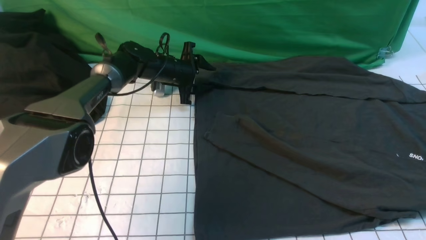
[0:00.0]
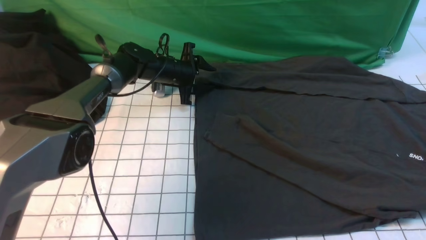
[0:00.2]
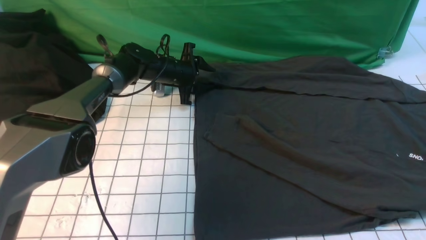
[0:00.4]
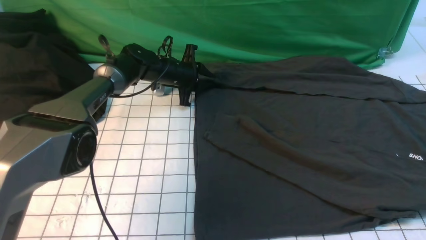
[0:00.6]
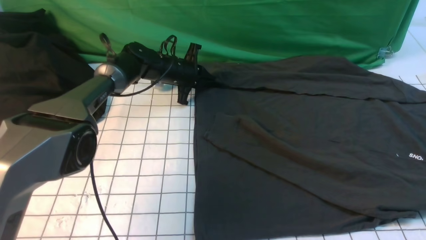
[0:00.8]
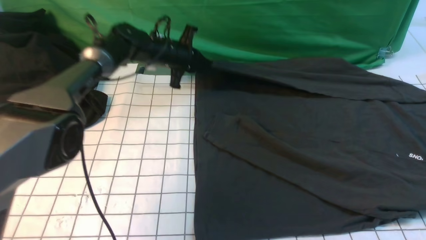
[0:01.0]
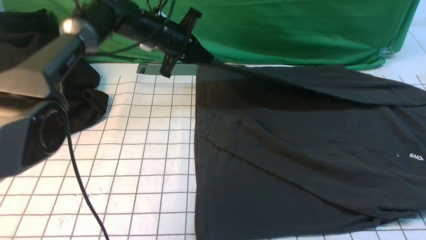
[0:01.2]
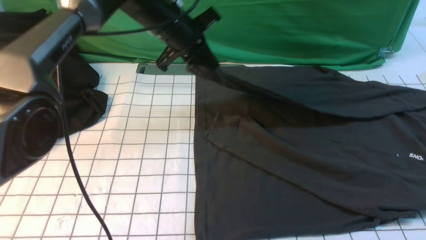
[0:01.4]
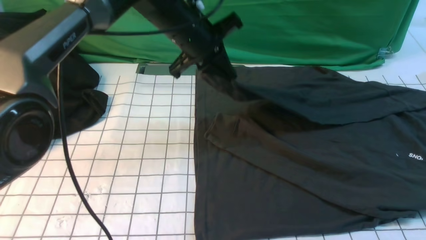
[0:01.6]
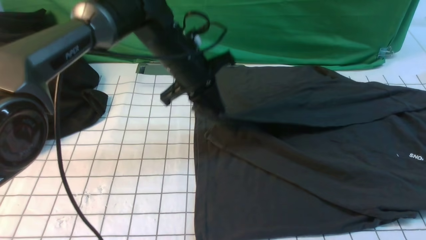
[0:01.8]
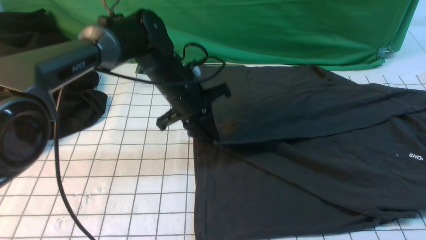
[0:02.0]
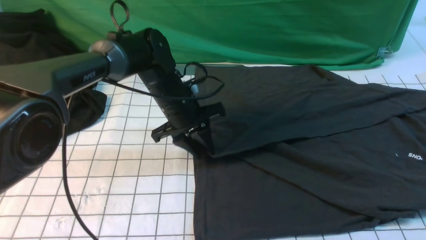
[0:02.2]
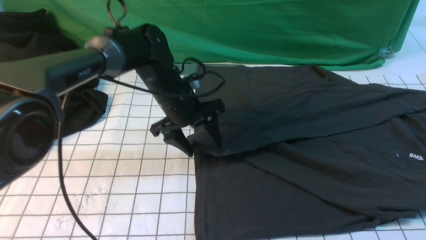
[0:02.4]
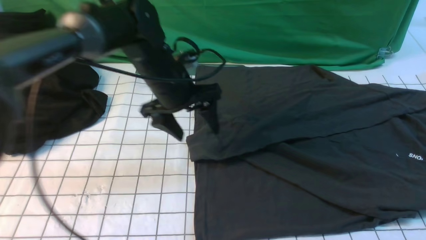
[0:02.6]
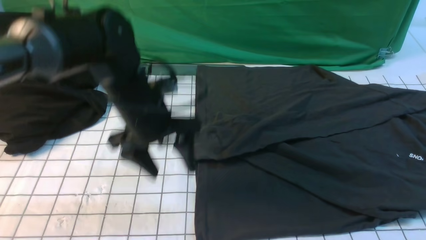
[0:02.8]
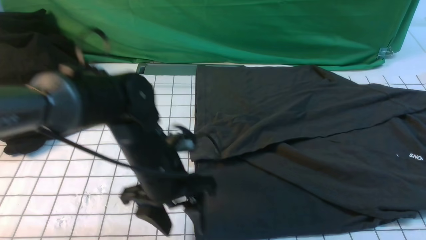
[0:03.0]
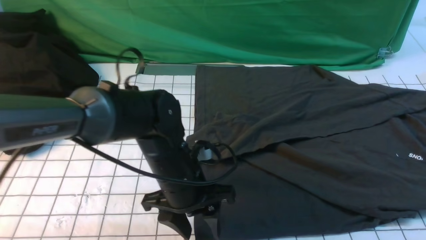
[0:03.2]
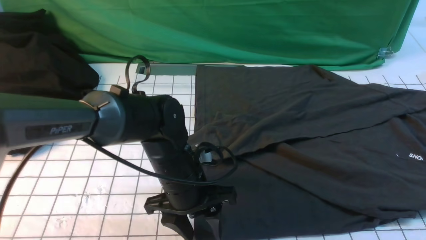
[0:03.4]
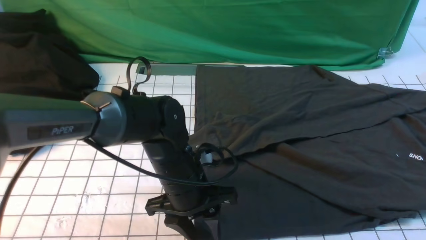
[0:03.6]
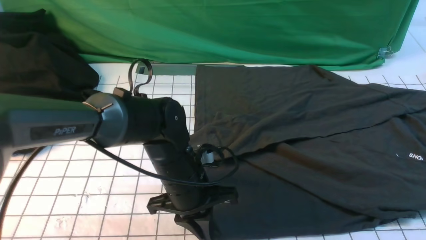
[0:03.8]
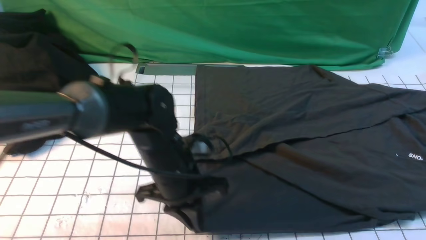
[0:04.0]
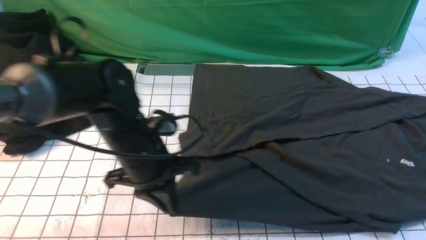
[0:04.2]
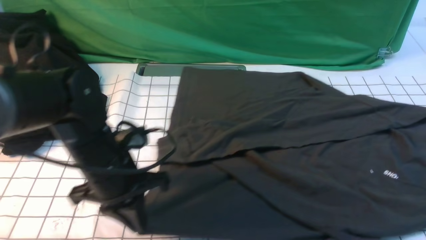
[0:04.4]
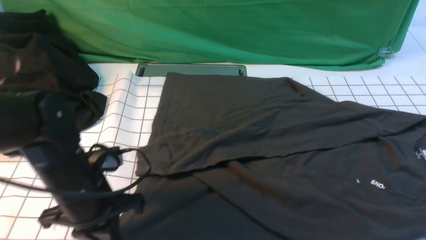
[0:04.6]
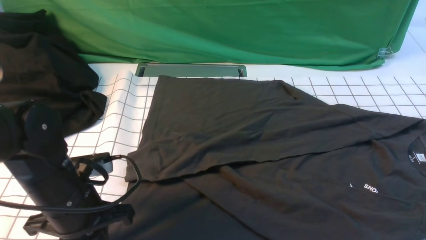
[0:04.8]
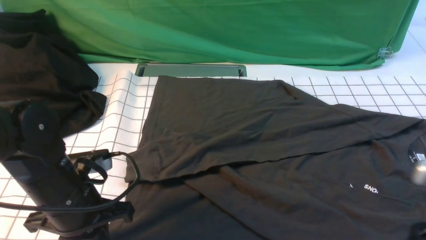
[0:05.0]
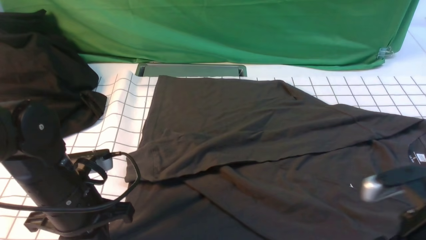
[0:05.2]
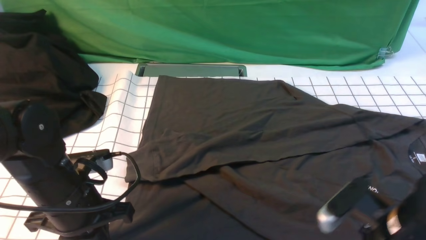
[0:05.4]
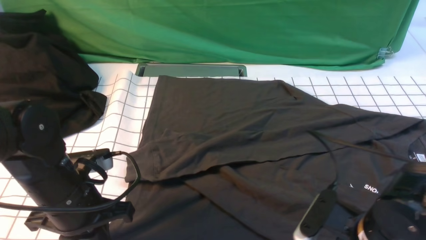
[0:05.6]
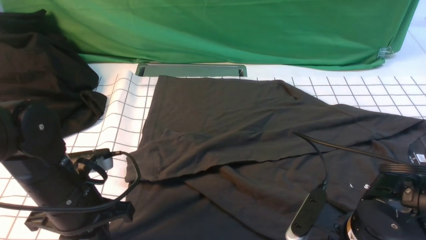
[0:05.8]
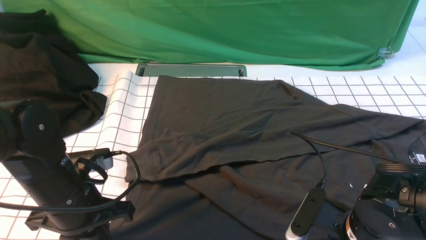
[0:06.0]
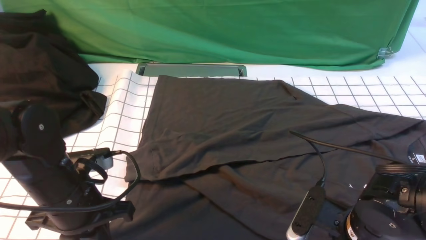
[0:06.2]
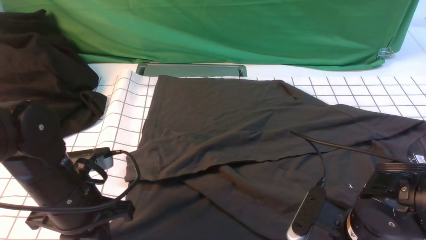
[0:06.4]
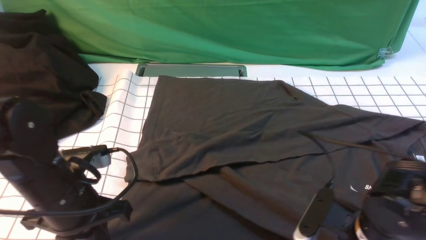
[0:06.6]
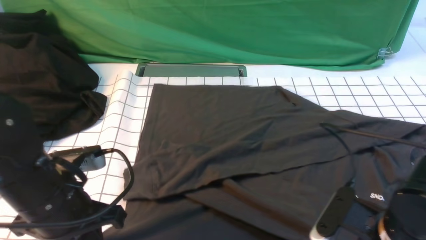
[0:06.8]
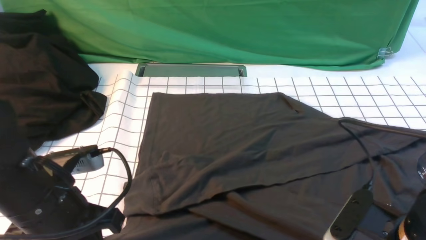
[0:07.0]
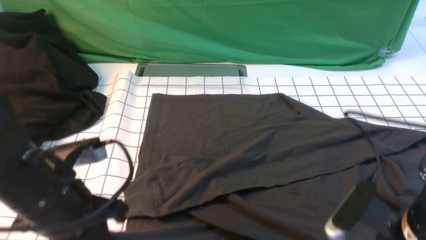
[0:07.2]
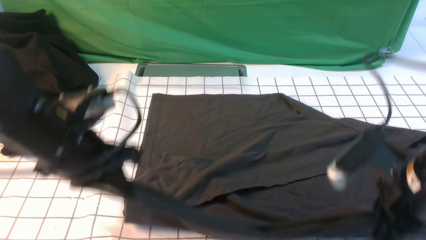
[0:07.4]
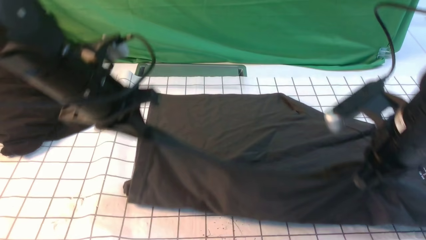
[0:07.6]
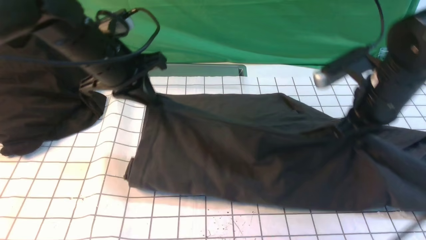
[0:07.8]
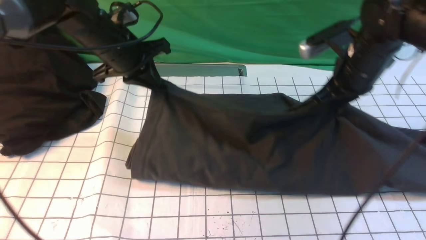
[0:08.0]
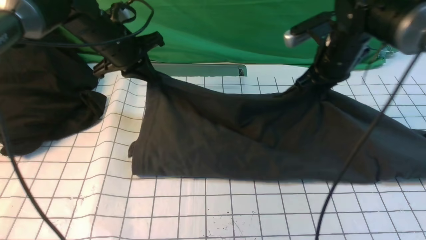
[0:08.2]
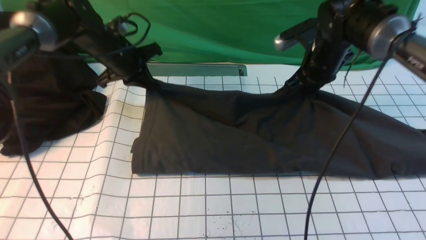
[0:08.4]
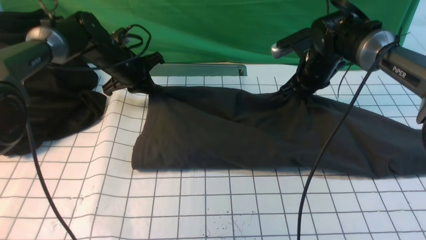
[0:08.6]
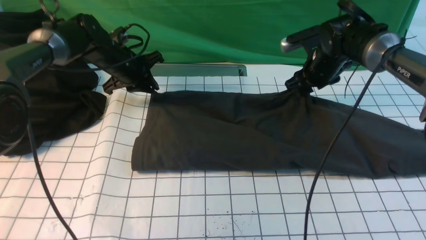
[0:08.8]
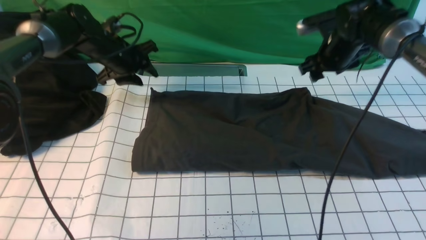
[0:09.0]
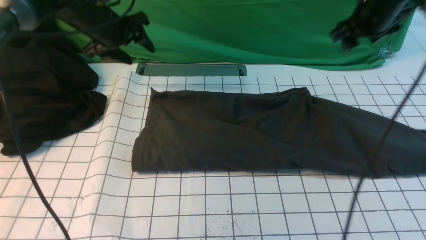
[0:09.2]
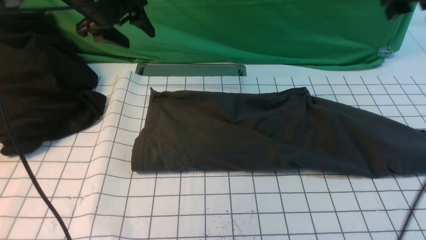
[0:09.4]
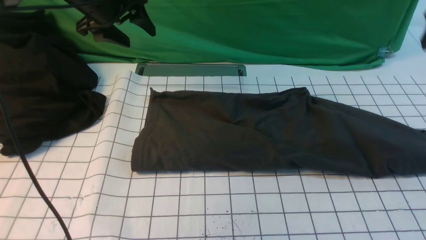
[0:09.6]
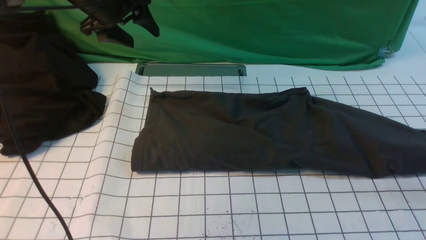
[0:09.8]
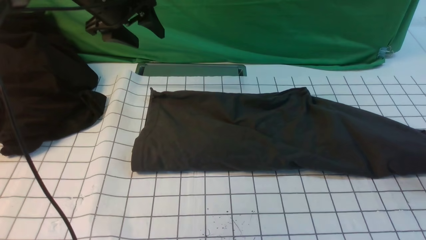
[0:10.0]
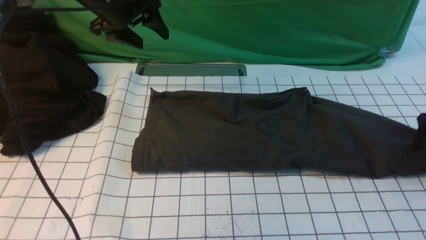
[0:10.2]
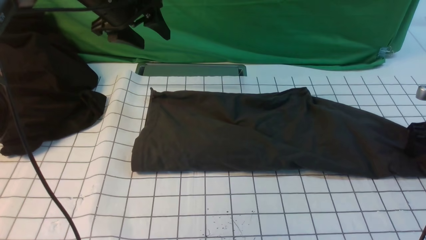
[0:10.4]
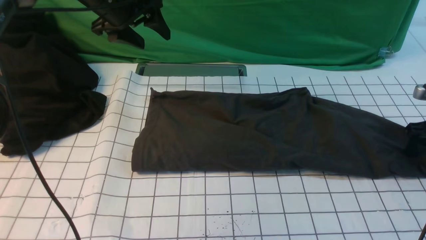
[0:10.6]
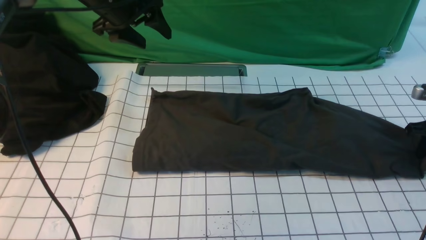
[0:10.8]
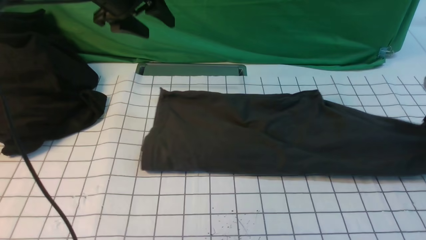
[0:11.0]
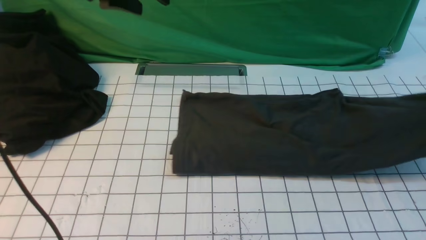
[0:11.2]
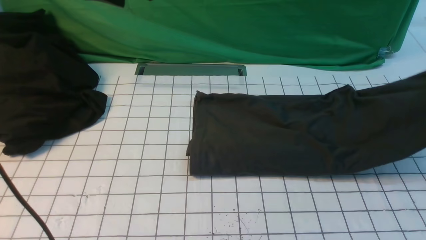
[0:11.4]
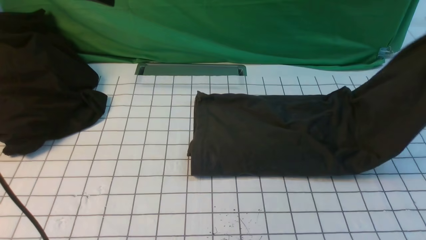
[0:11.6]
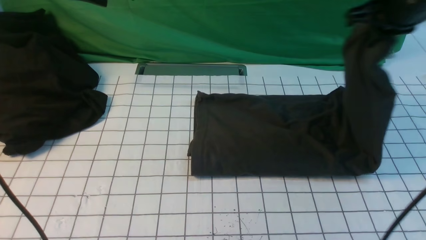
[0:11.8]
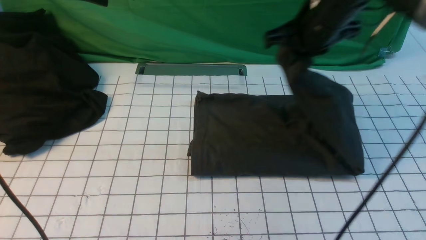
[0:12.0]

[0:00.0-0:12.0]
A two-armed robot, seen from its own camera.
Step, 0:01.0 to 0:02.4: use the left arm to drag and drop the cuff onto the cuff closest to the left arm.
Step, 0:02.6 to 0:06.2: use both arms simultaneously to clamp the lower edge of the clothing fabric.
Step, 0:06.4 to 0:08.8: use both arms to drag the lower edge of the fabric forward and fold it over the upper edge.
Step, 0:09.0 to 0:10.6: use the right arm to clamp the right edge of the fabric.
0:00.0 to 0:01.6: The left gripper heads upward and backward, covering roughly 20 cm, and closes.
0:01.6 to 0:03.0: The left gripper is displaced backward and downward by some 20 cm, and opens up.
0:03.0 to 0:04.4: The left gripper moves to the left, approximately 10 cm, and closes.
0:04.4 to 0:06.0: The left gripper moves about 5 cm, while the right gripper is displaced downward and to the left by approximately 20 cm.
0:06.0 to 0:07.6: The grippers both shift upward and forward by some 15 cm. The right gripper closes its fingers.
0:07.6 to 0:09.0: The two grippers go roughly 20 cm forward. The right gripper opens. Meanwhile the left gripper opens.
0:09.0 to 0:10.4: The left gripper shifts approximately 10 cm upward. The right gripper moves to the right, backward and downward, some 25 cm.
0:10.4 to 0:12.0: The left gripper is displaced upward by roughly 10 cm. Meanwhile the right gripper heads to the left and upward, covering some 35 cm, and closes its fingers.

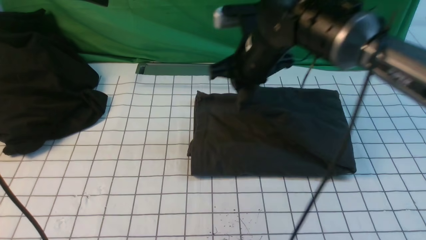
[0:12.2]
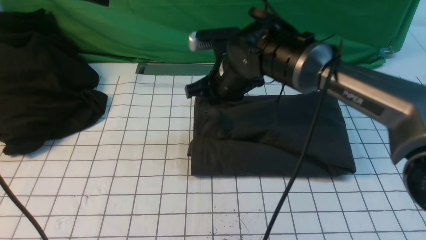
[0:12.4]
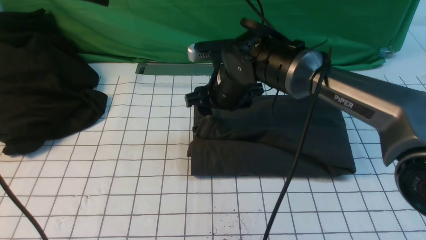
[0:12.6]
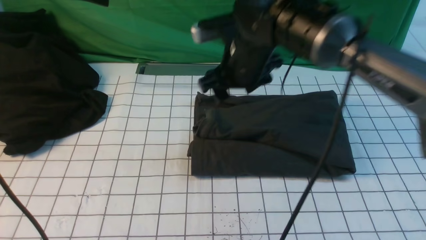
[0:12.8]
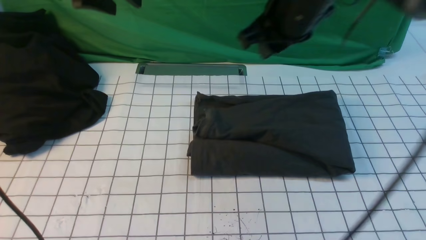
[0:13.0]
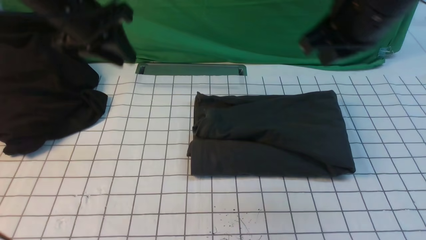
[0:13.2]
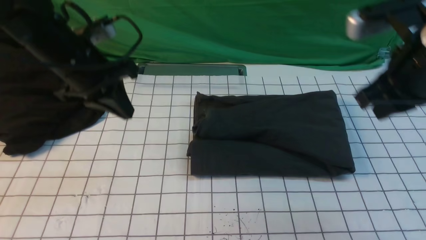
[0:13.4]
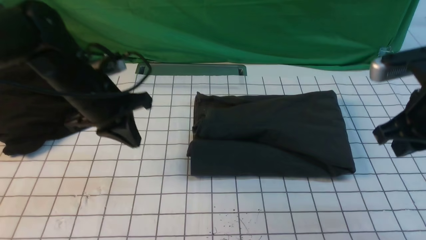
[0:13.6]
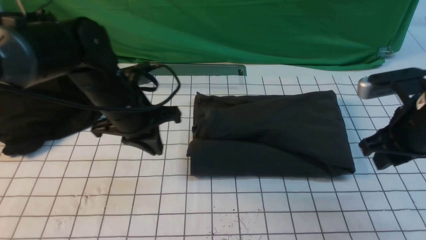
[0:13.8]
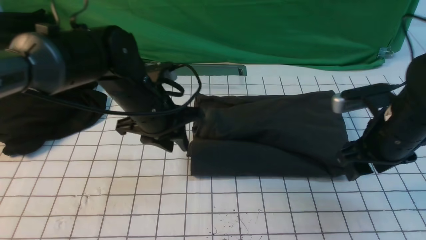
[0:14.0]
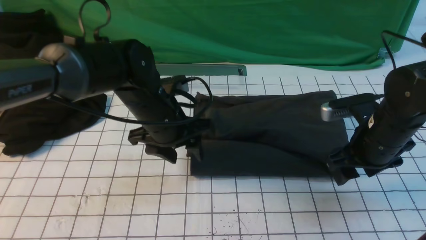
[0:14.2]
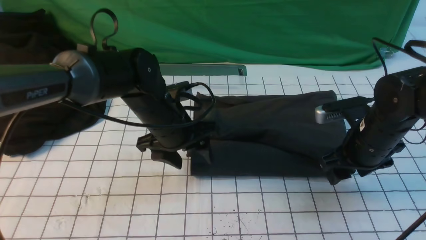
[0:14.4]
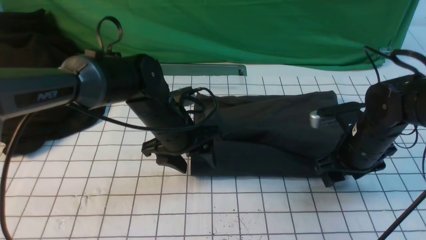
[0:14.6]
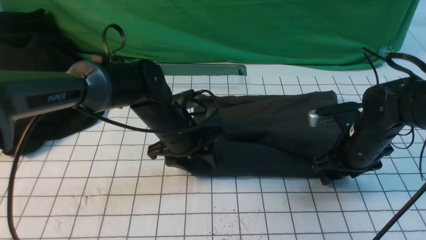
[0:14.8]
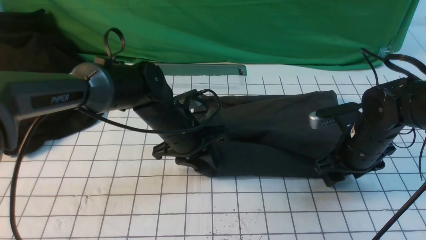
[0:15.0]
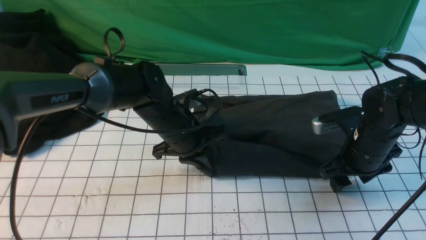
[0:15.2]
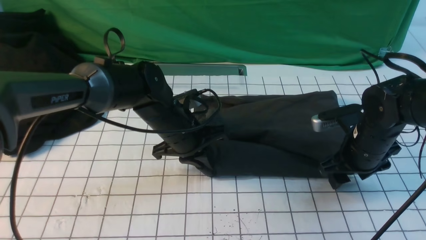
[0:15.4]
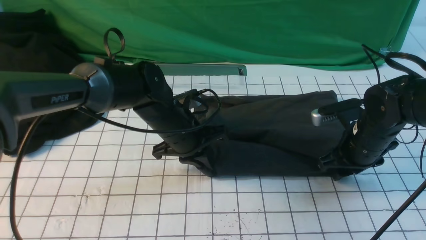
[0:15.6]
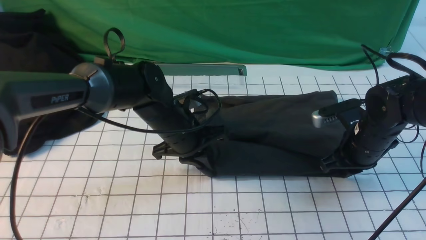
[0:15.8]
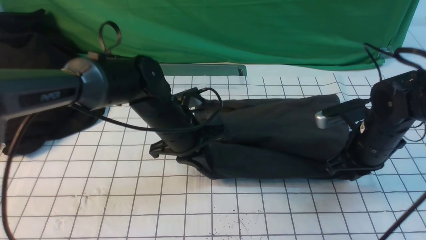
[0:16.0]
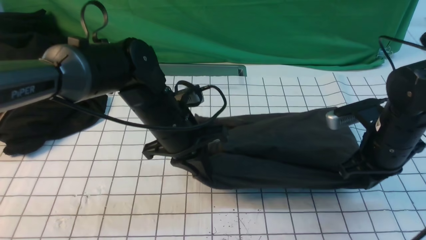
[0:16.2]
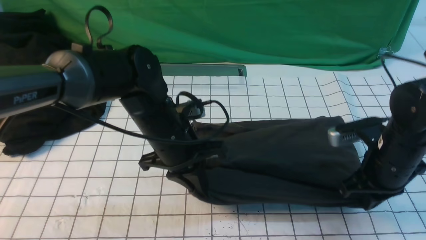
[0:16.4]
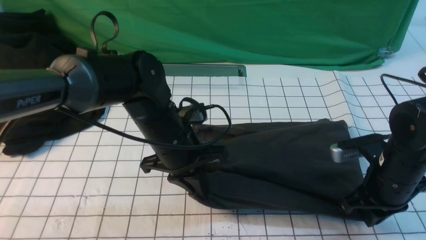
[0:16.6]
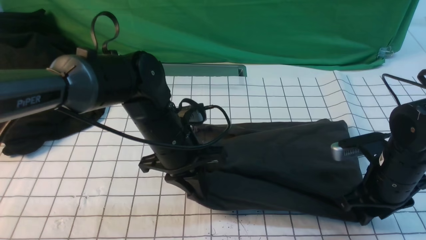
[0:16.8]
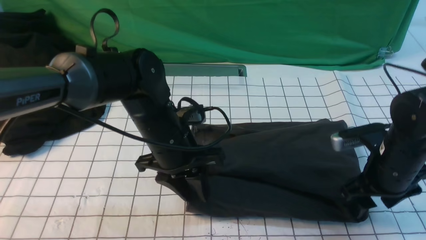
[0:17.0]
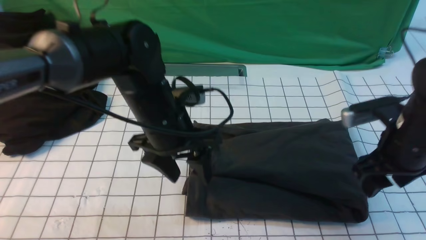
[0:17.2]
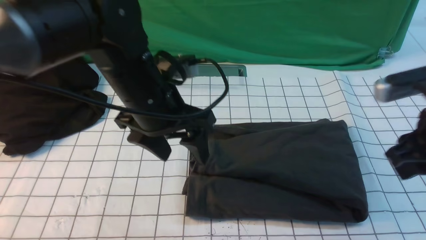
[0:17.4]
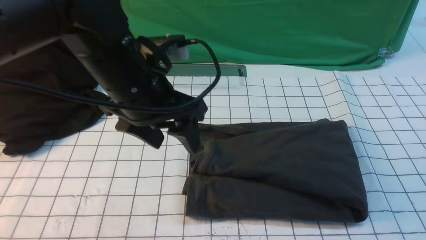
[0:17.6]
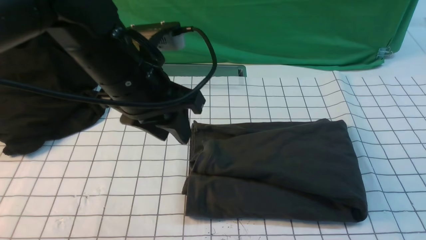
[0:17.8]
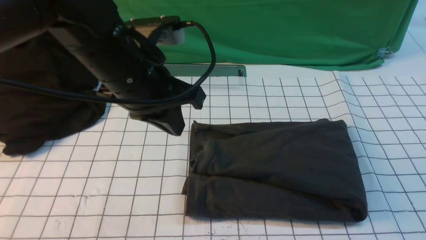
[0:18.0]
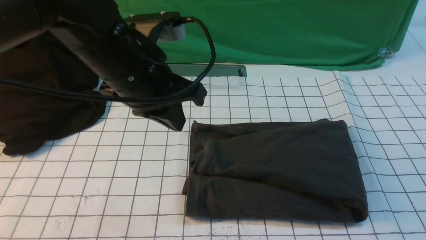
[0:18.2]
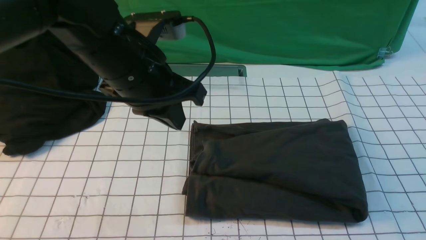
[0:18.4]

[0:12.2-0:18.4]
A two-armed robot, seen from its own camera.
0:12.2 to 0:13.8: The left gripper goes approximately 20 cm downward, backward and to the right, and closes its fingers; the right gripper travels to the right and backward by some 25 cm.
0:13.8 to 0:15.4: The right gripper shifts roughly 10 cm downward. Meanwhile the left gripper heads to the right and downward, covering about 10 cm, and opens and closes again.
0:15.4 to 0:16.8: The left gripper changes place by approximately 5 cm; the right gripper goes roughly 5 cm backward, and closes, then opens again.
0:16.8 to 0:18.4: The left gripper is displaced upward by roughly 15 cm, and opens, then closes again. Meanwhile the right gripper heads backward and upward, covering some 30 cm, and closes its fingers.
